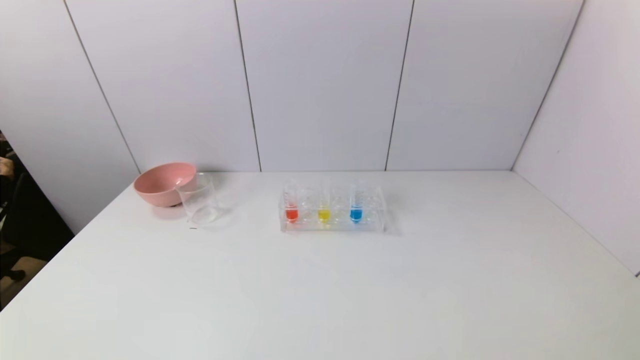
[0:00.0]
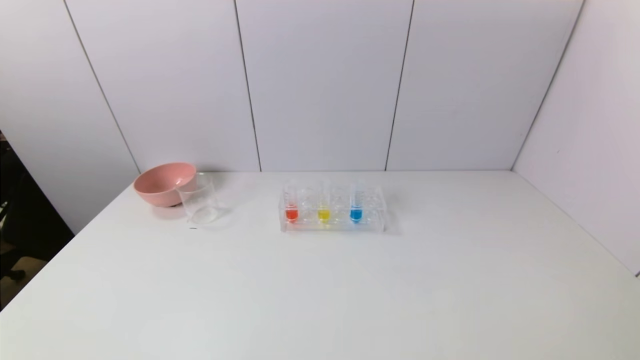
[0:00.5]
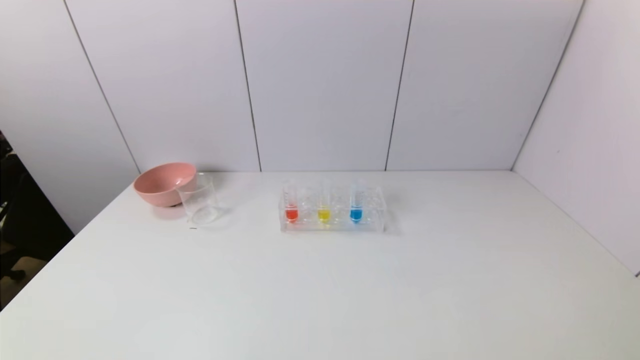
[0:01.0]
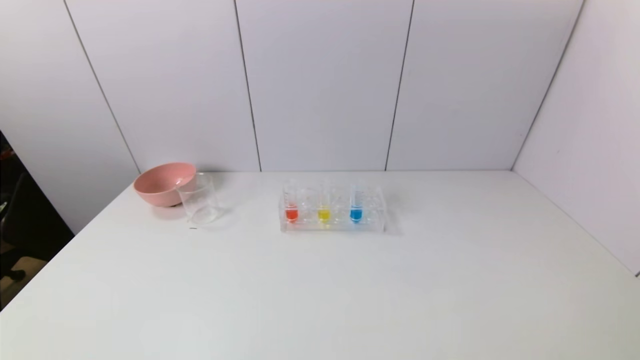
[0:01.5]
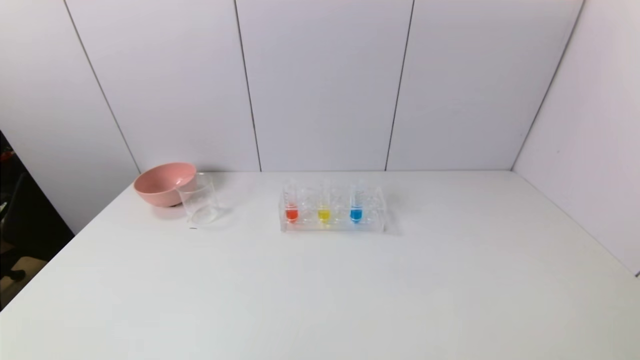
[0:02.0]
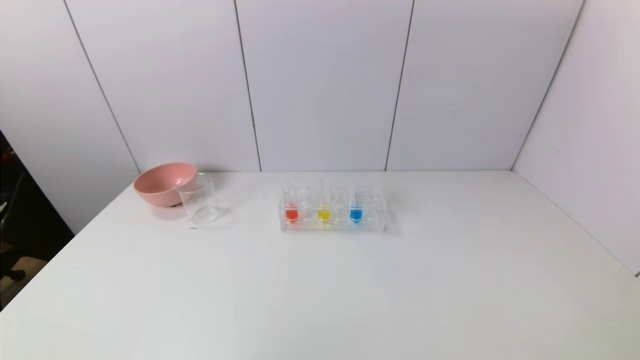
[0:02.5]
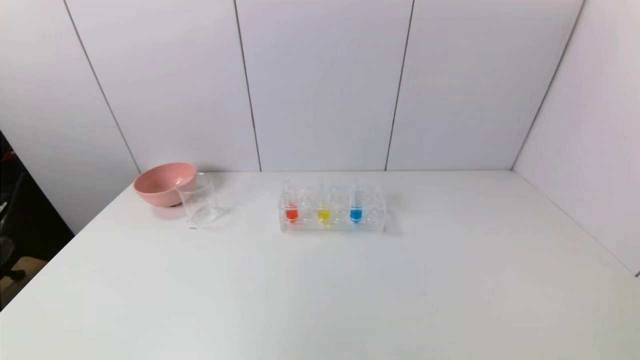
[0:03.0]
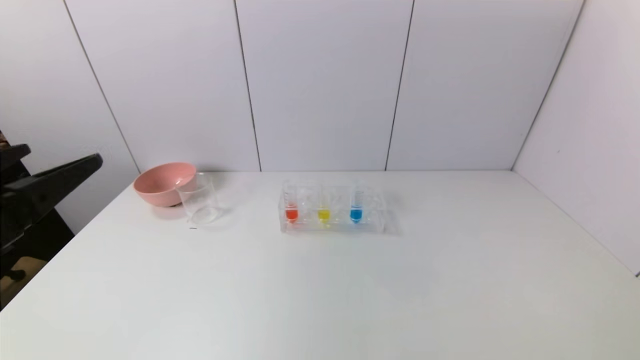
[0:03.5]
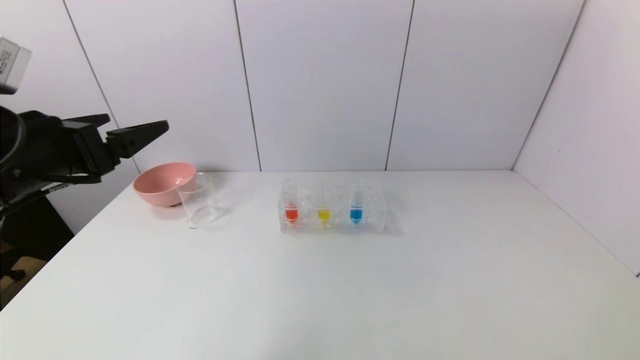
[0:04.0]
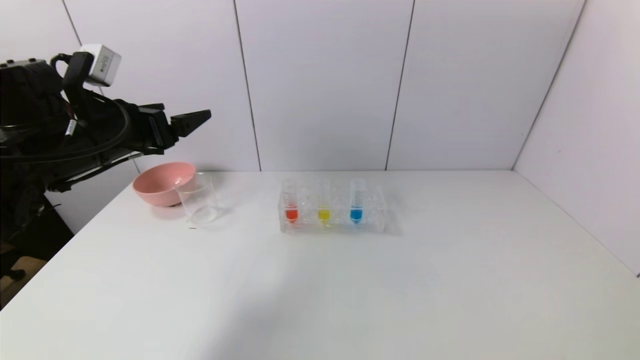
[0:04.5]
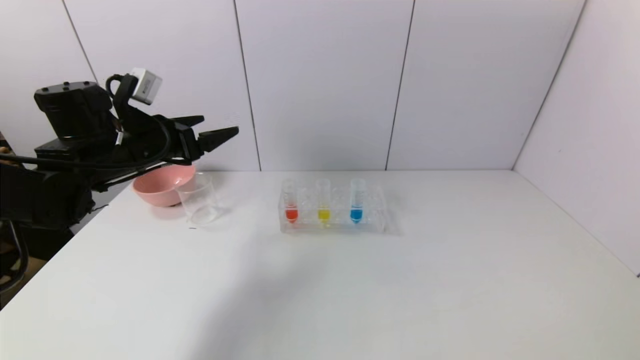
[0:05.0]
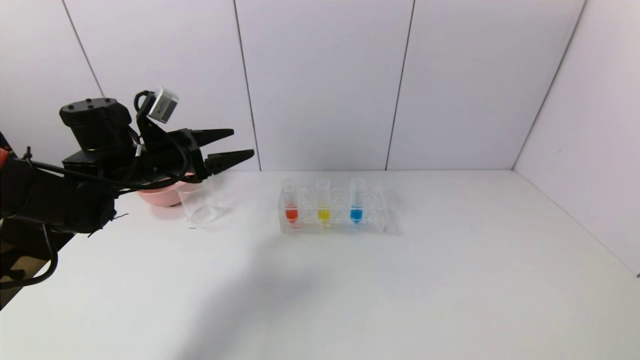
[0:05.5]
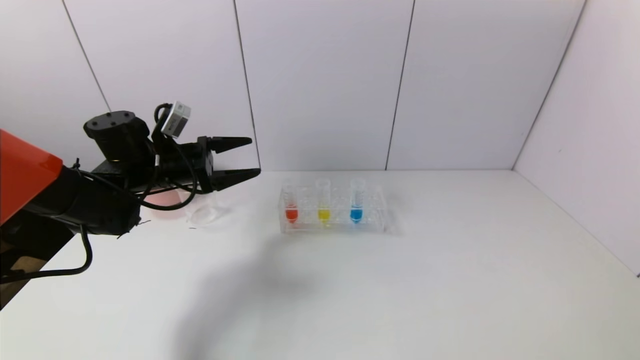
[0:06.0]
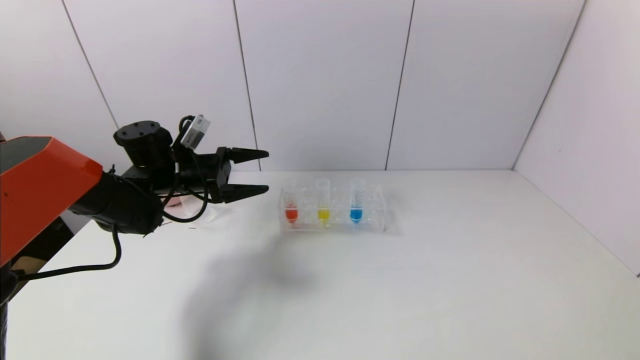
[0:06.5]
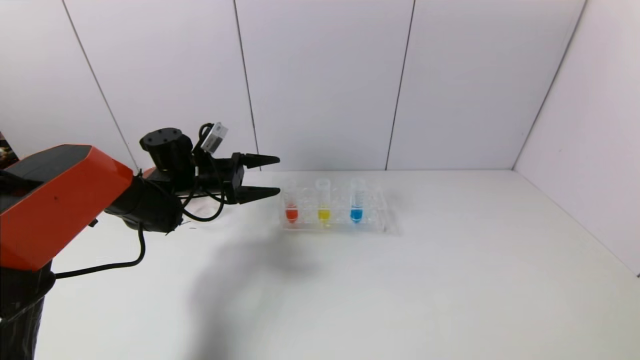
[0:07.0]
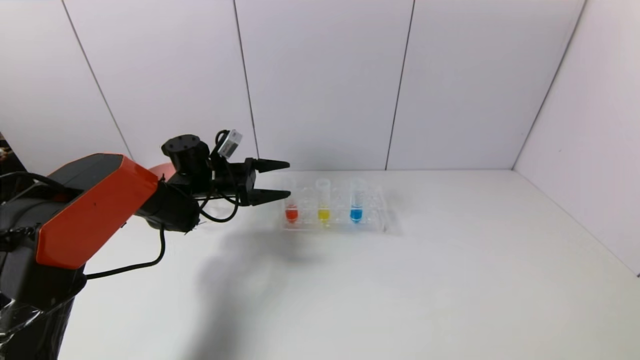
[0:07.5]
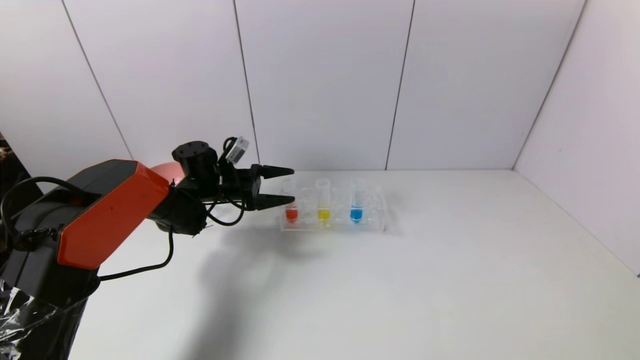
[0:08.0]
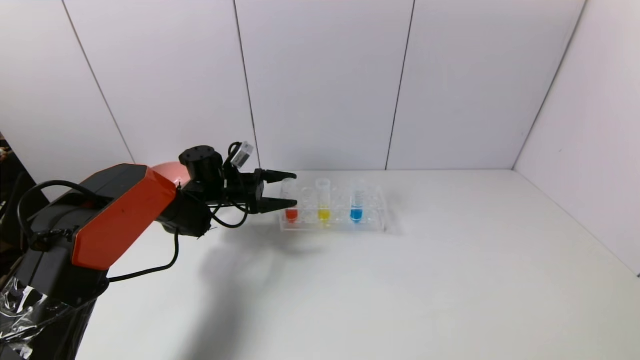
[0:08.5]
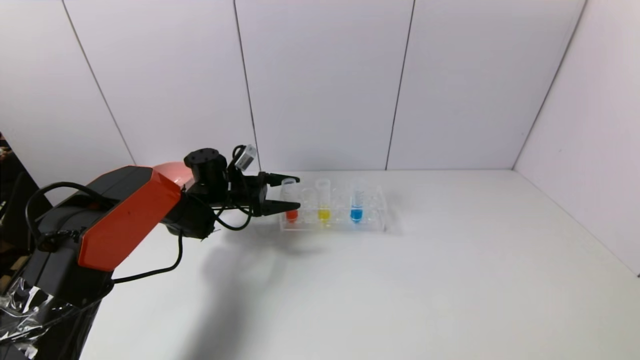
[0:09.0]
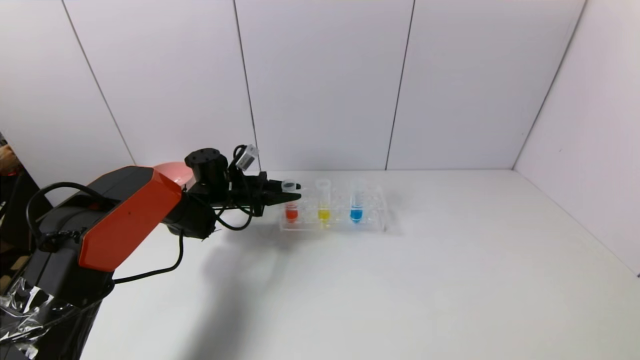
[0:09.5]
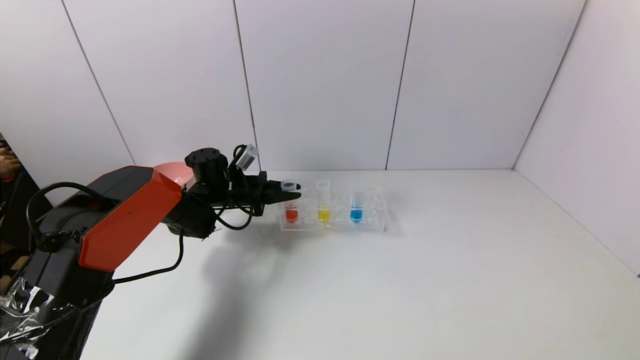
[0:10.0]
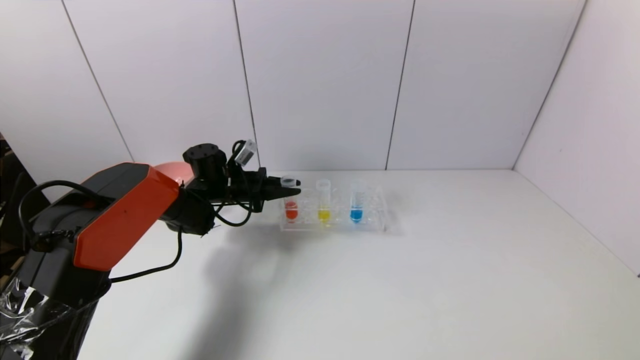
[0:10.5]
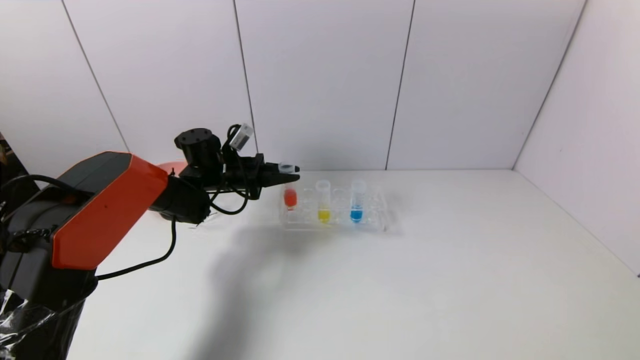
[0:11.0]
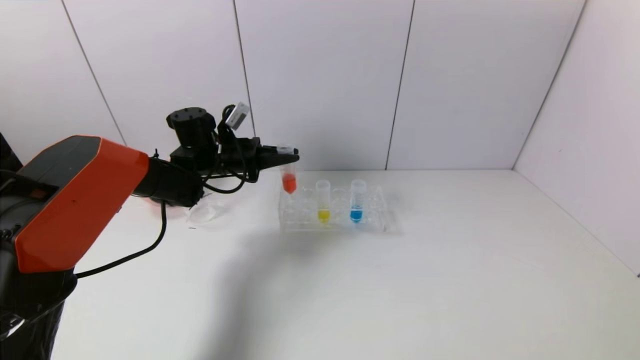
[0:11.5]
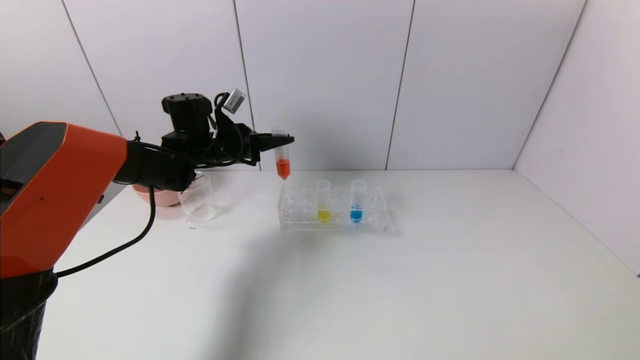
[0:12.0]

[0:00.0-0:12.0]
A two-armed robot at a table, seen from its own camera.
Task of the whole recording: pick up the test tube with red pigment and the test tube with blue pigment by grippers and pour them into the container.
Step, 0.0 to 10.0 s: Grasp the red reagent with the left gripper.
2.0 to 4.0 s: The left gripper moves forward and upward, roughly 30 cm.
4.0 to 6.0 s: The left gripper goes about 20 cm forward and downward.
6.0 to 8.0 s: The left gripper heads downward, forward and to the right, covering approximately 15 cm.
8.0 to 10.0 s: The left gripper closes its fingers.
10.0 to 12.0 s: The left gripper heads upward, covering about 10 cm.

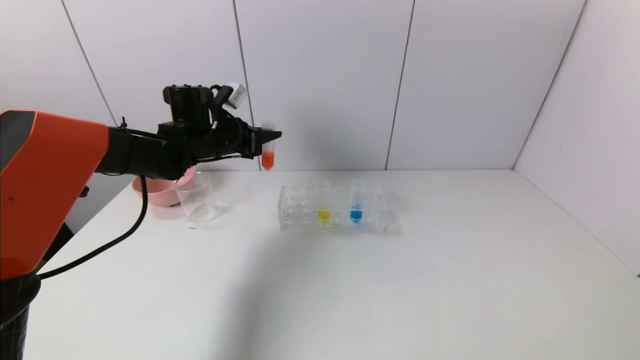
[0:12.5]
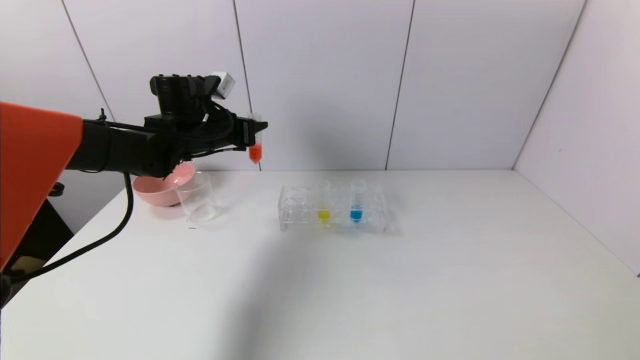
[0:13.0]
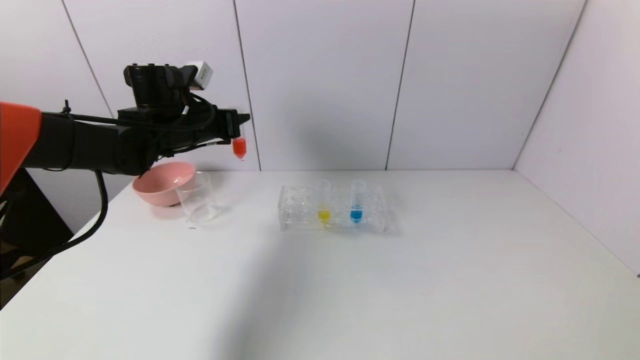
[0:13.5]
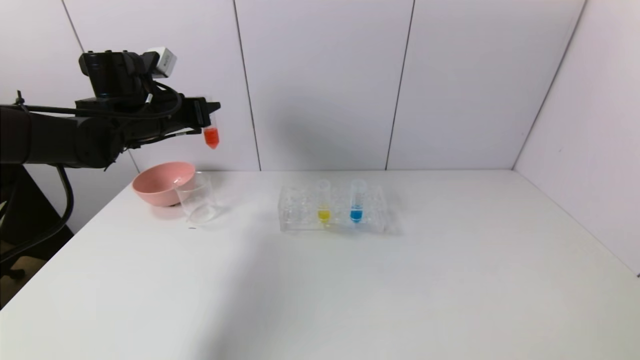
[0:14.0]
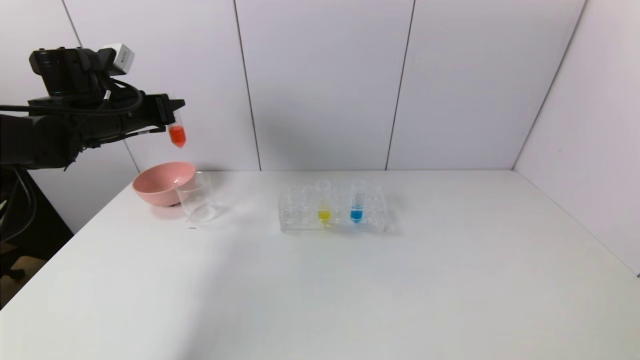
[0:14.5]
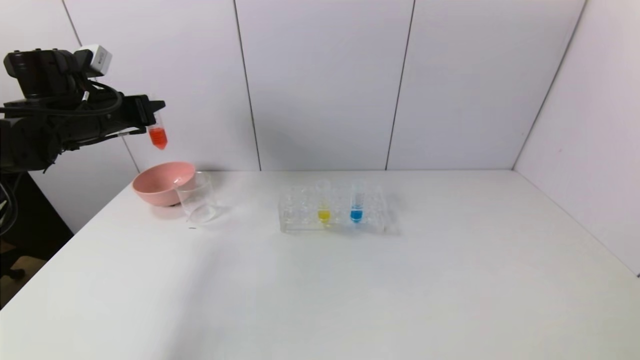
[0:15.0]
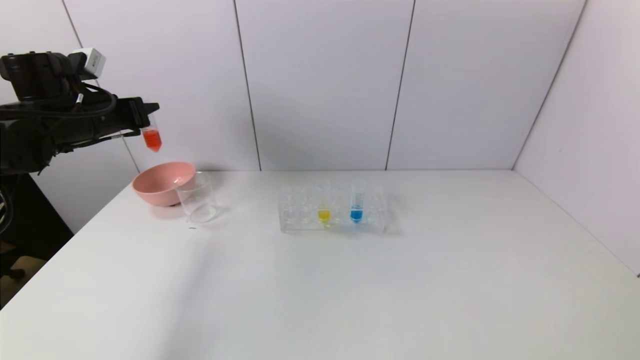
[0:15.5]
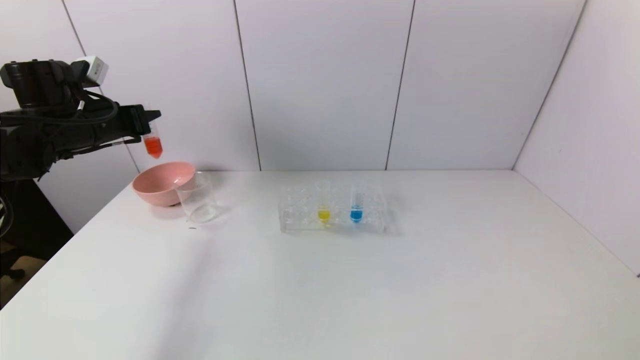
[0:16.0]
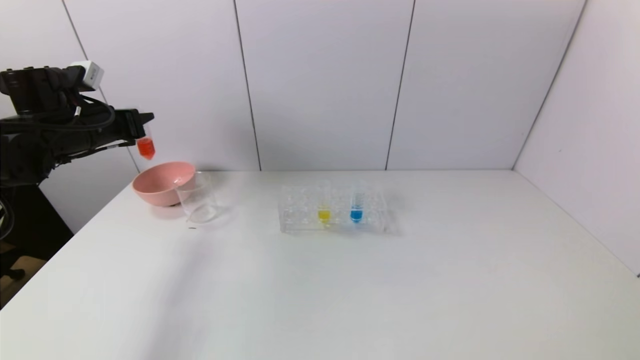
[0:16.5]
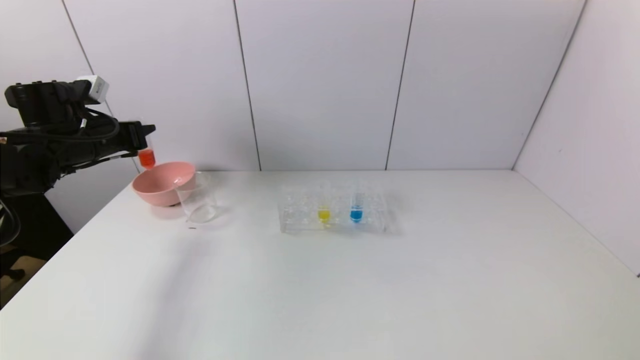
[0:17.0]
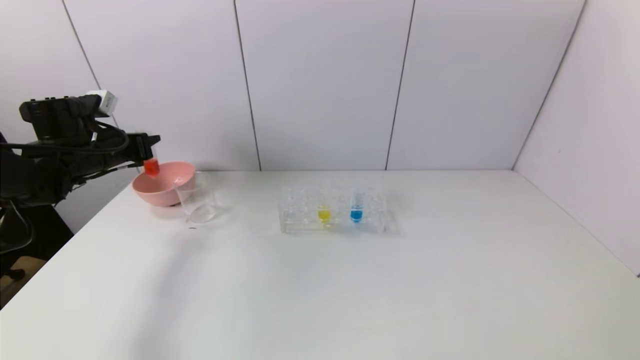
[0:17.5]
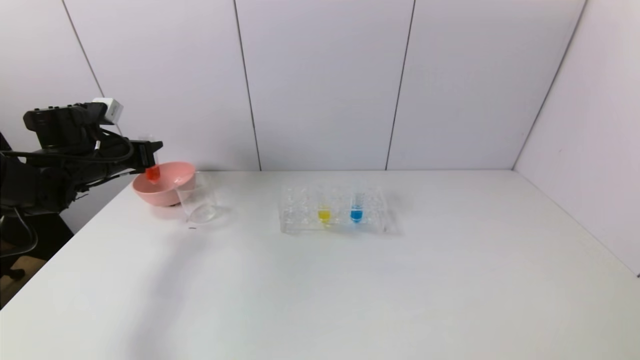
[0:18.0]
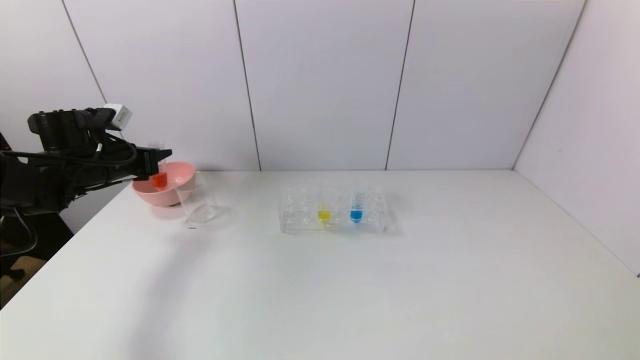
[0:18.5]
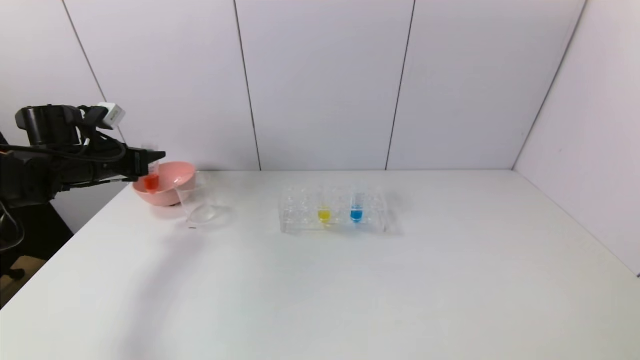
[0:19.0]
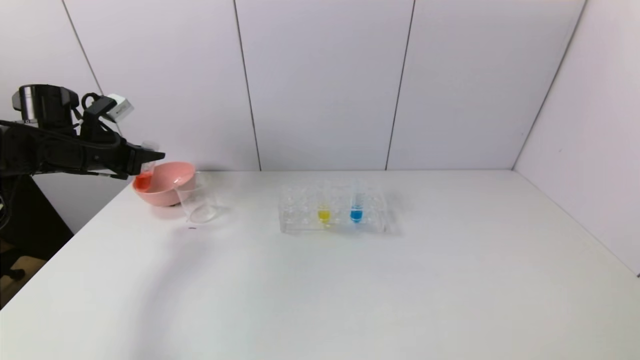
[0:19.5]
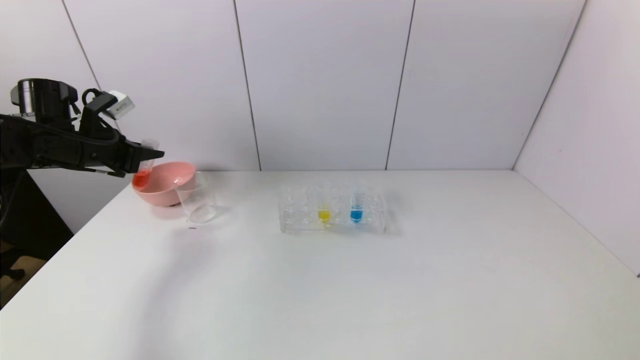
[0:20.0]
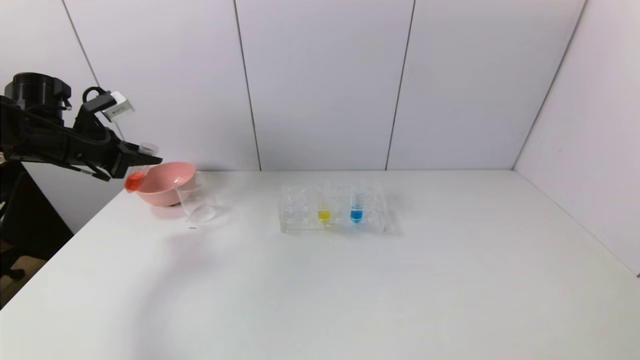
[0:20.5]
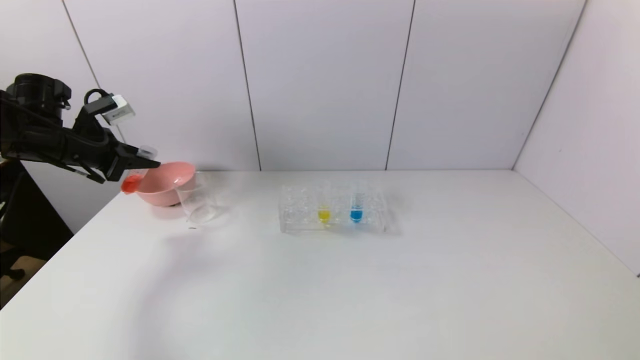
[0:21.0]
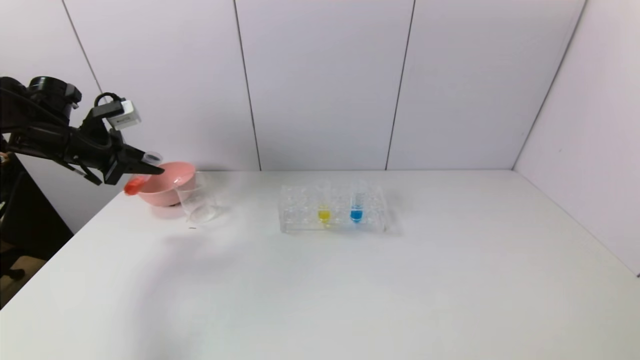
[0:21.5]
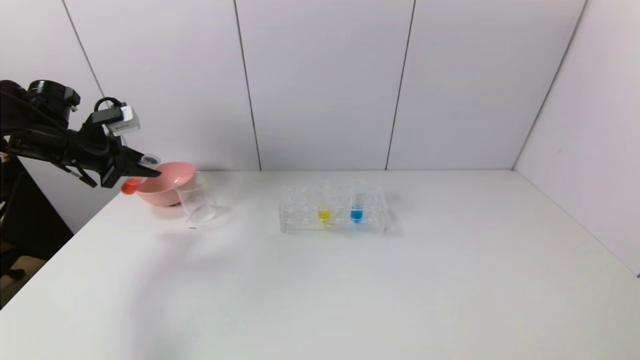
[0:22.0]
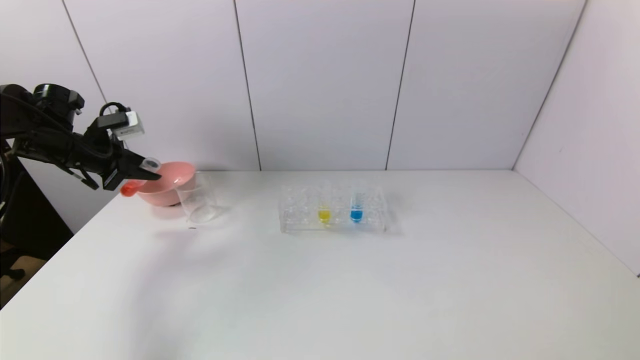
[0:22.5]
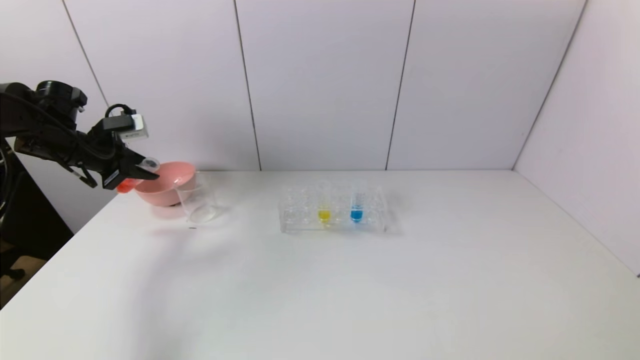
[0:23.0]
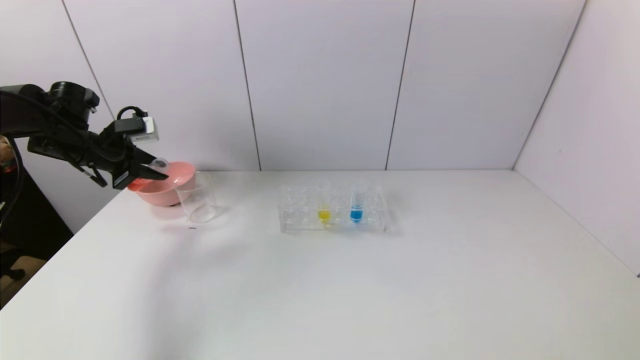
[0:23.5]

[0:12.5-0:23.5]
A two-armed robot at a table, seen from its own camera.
Task of the whole recording: pick up the test tube with red pigment and the test tube with blue pigment by grippers and pour them into the container.
12.5 to 14.5 s: The left gripper is displaced to the left, upward and backward by approximately 15 cm.
14.5 to 16.0 s: The grippers move only a little.
16.0 to 18.0 s: The left gripper is displaced downward by roughly 5 cm.
21.5 to 23.5 s: The grippers make only small movements.
